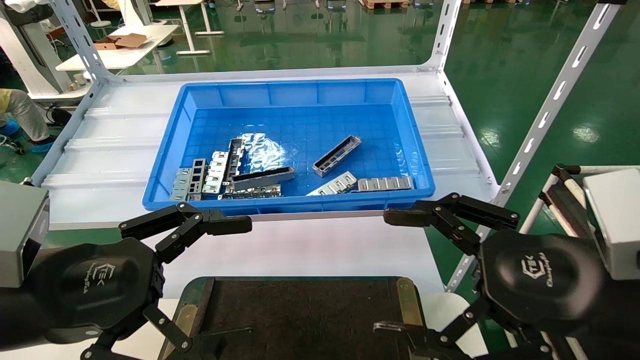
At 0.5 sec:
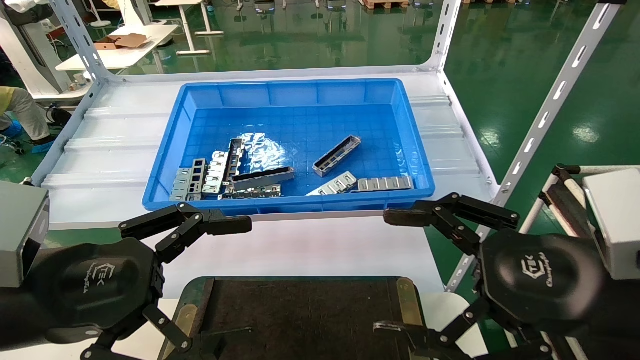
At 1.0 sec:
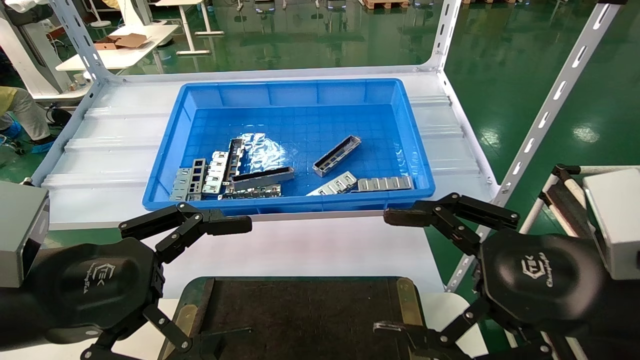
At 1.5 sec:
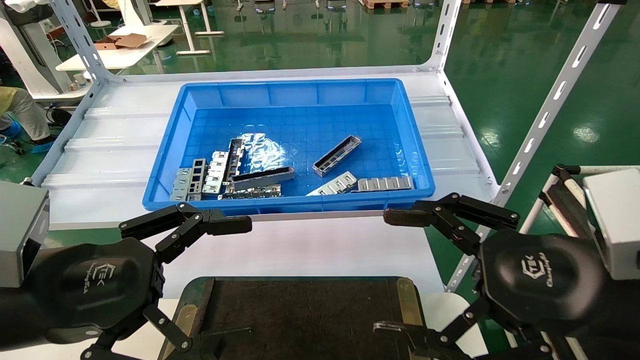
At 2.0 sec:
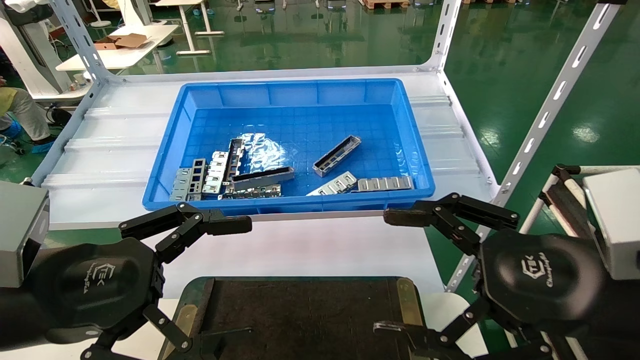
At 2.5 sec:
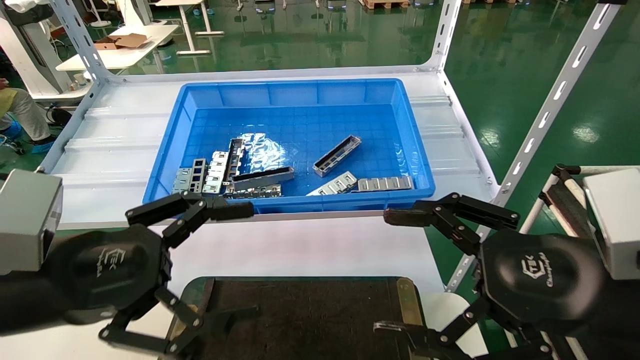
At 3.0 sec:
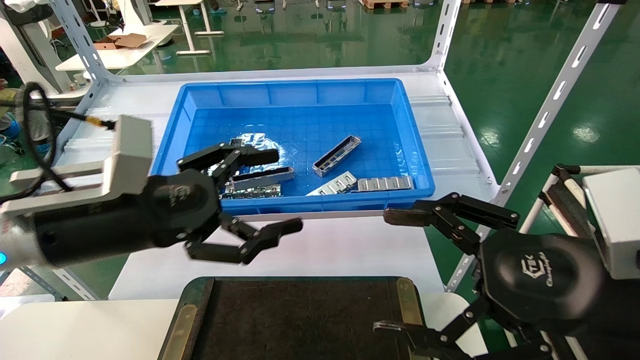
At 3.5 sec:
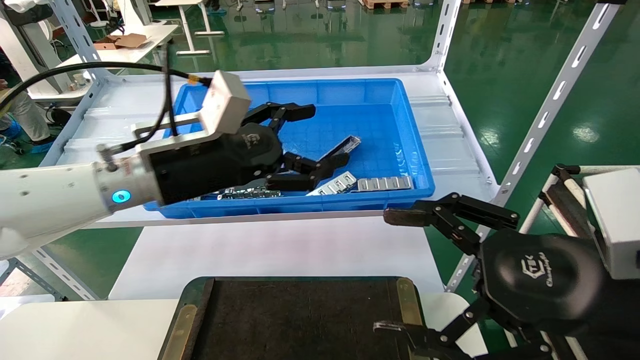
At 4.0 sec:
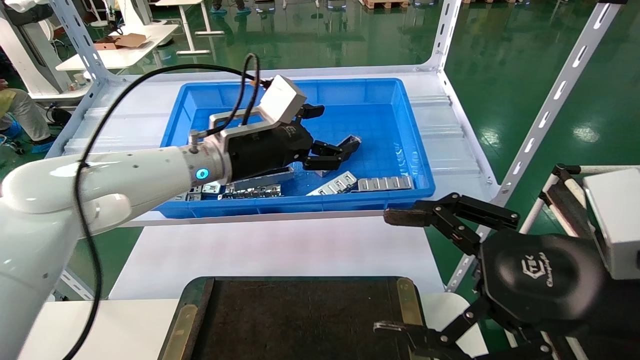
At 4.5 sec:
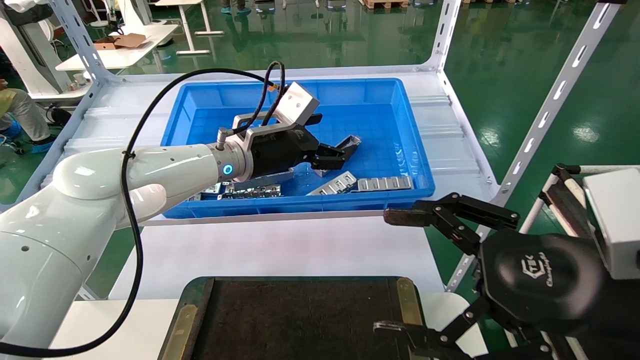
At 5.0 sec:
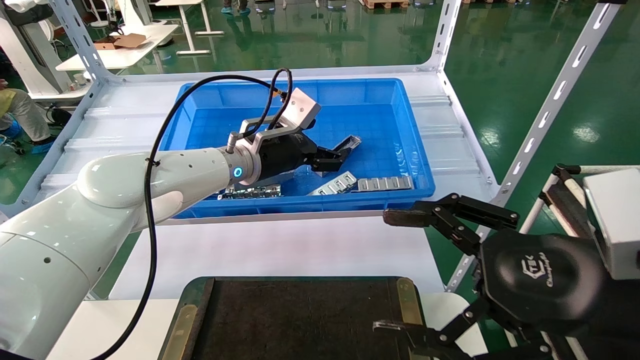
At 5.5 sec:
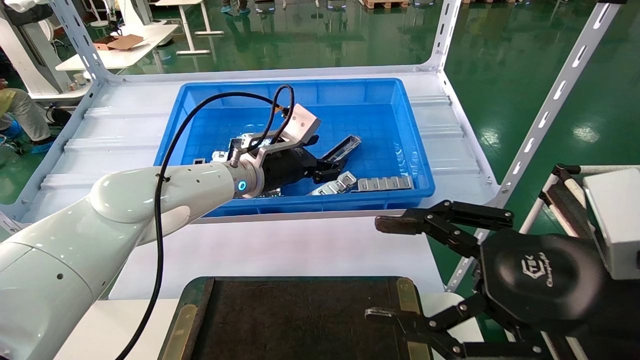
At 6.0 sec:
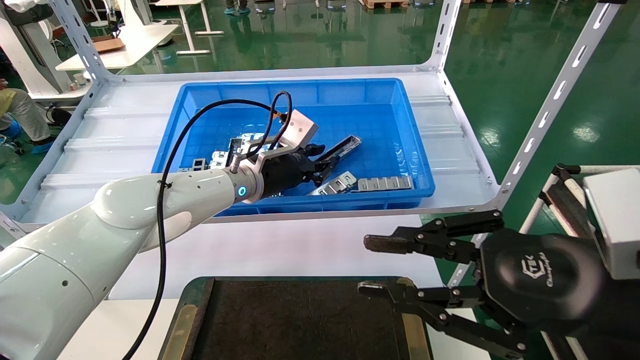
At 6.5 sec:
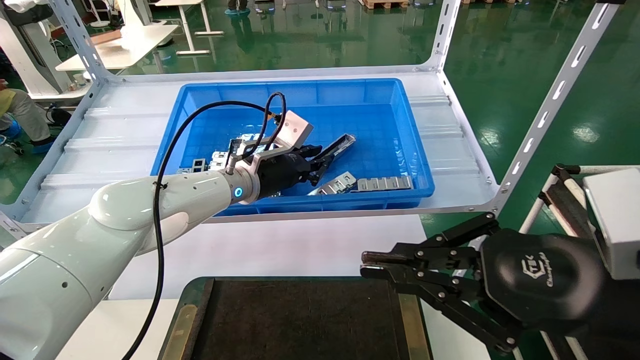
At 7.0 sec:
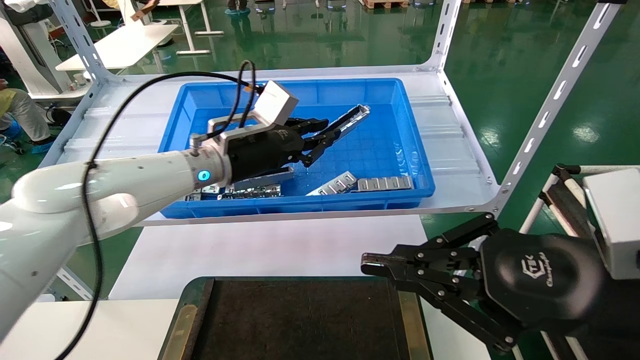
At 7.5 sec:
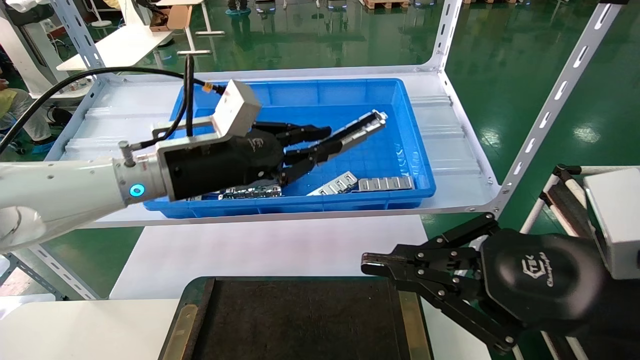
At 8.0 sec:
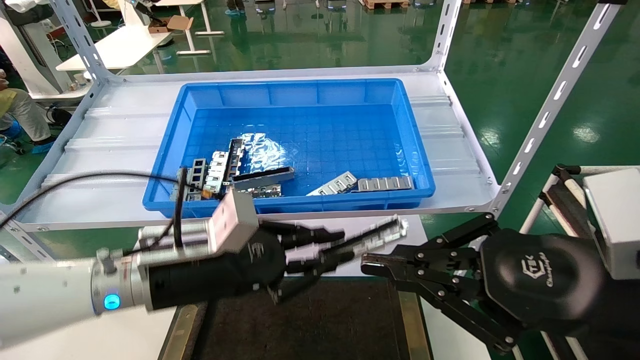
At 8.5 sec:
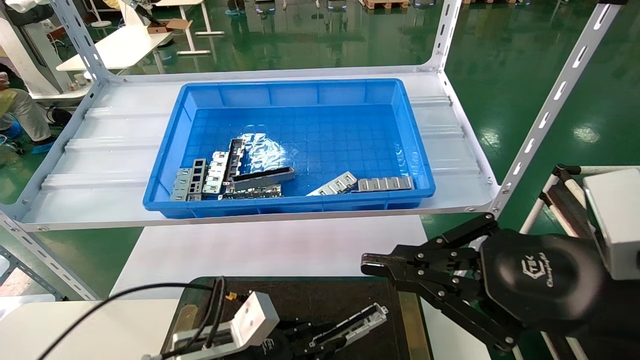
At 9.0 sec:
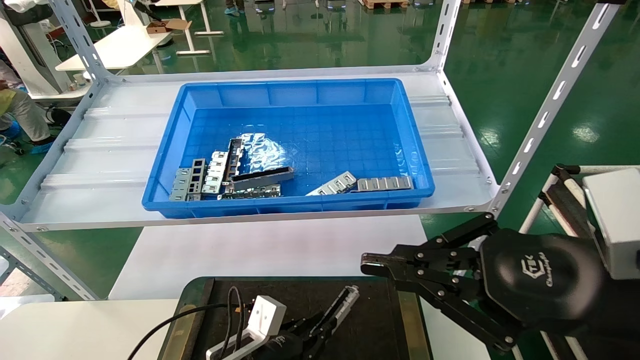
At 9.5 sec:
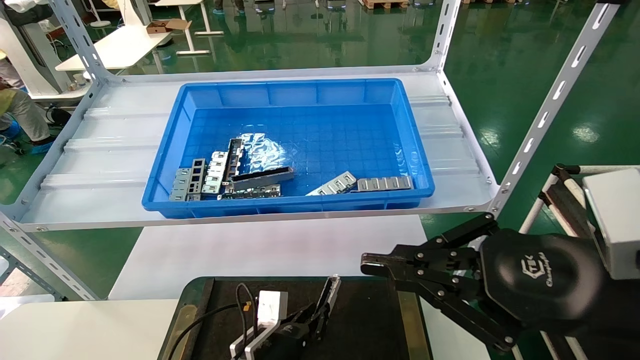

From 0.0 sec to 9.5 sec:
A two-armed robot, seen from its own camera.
Task of the whole recording: Grasp the part with one hand and place it on the black container.
Step, from 3.0 sec to 6.0 sec: Pick up the front USB bracket from the feeding area.
From 0.0 sec to 2.0 sec: Both grippers stay about where they are.
From 2.0 sec to 4.0 sec: The left gripper is displaced forward and to the right by some 30 cm.
From 4.0 sec to 5.5 sec: The left gripper shifts by roughly 5 cm.
From 5.5 sec to 7.5 sec: The left gripper travels backward and to the left by some 15 cm, and closes up; the right gripper closes.
From 7.5 sec to 9.5 sec: The left gripper is displaced downward by approximately 35 cm.

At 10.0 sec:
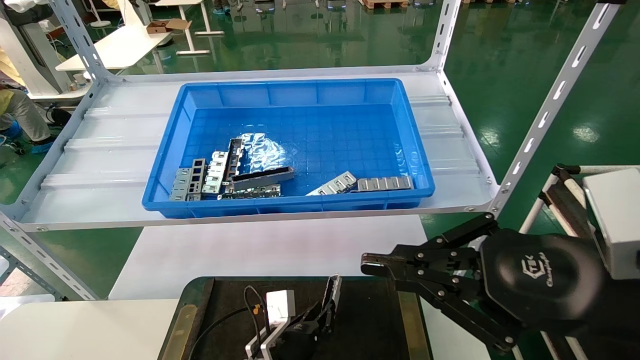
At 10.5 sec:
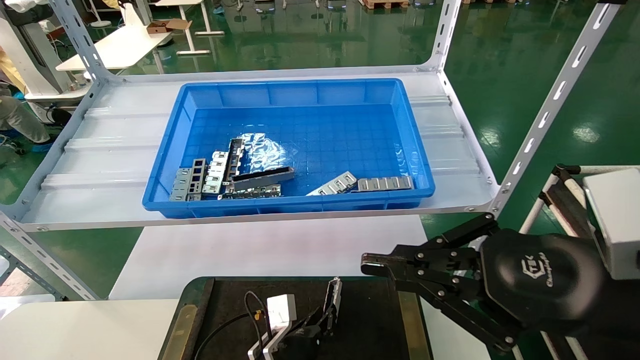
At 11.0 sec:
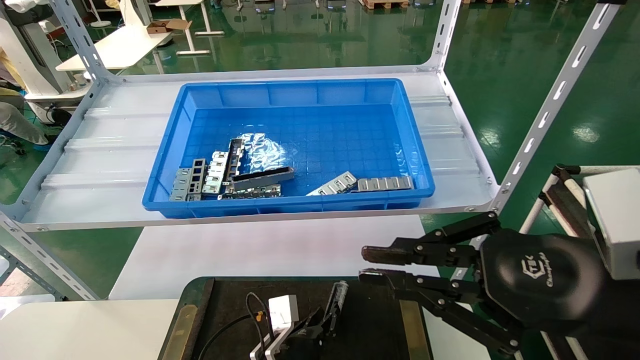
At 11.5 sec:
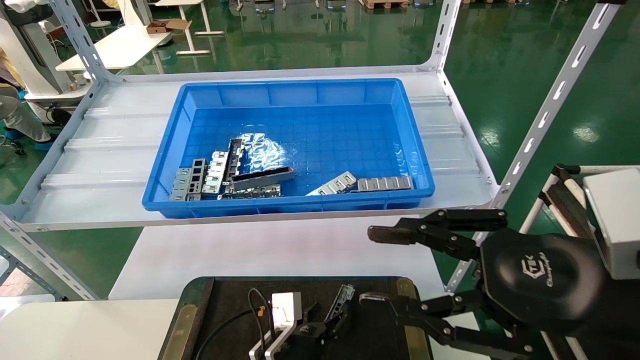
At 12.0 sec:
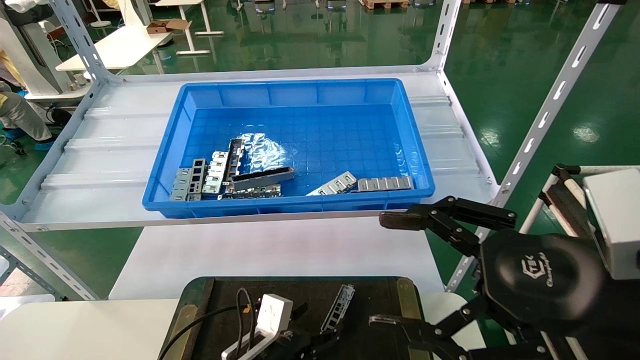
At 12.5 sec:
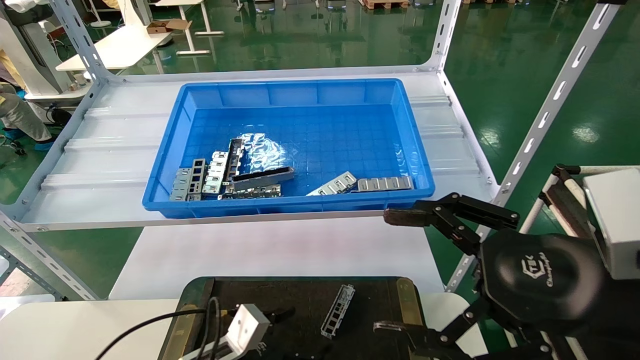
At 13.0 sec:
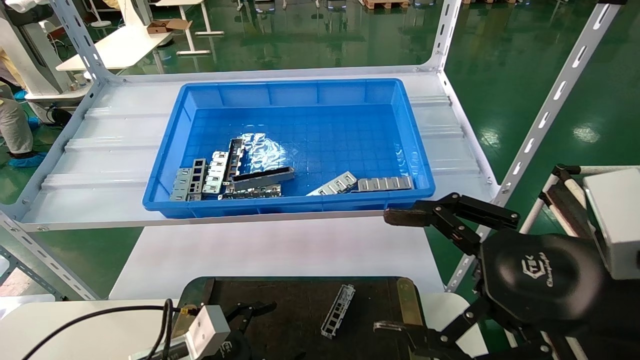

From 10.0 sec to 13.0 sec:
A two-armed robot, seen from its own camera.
Task of the whole recording: Grasp the part with one hand and place it on the black container.
From 10.0 sec to 11.5 sec: The right gripper opens up; the left gripper opens up.
From 11.5 sec to 13.0 sec: The left gripper moves to the left, roughly 15 cm, and opens up; the right gripper opens up.
